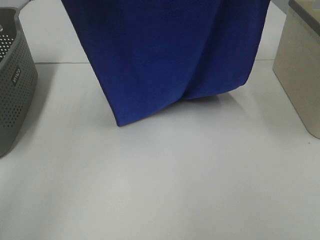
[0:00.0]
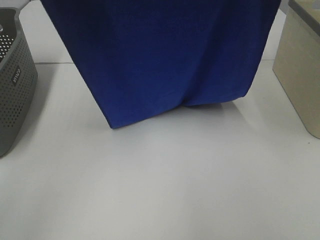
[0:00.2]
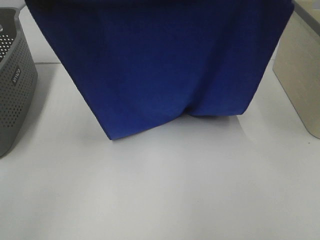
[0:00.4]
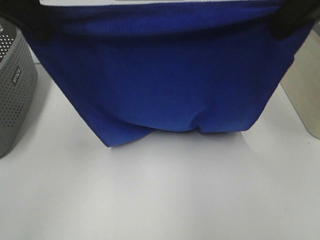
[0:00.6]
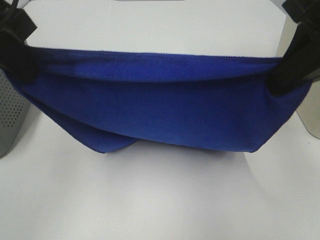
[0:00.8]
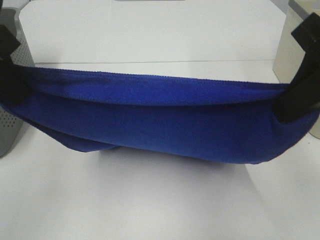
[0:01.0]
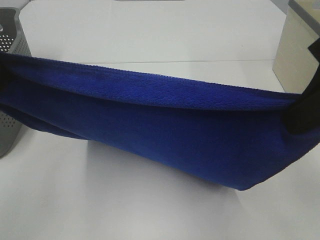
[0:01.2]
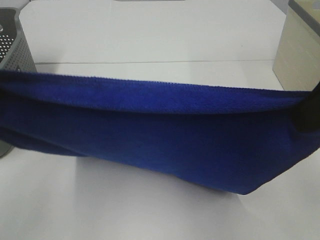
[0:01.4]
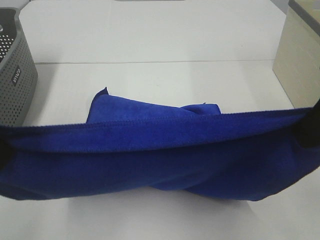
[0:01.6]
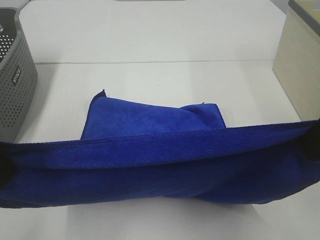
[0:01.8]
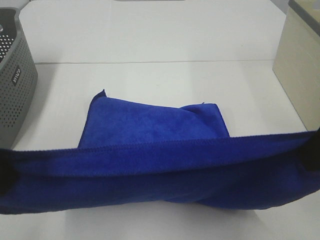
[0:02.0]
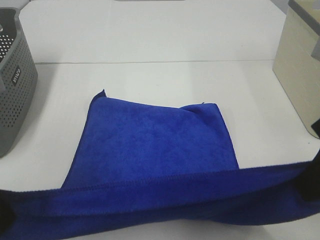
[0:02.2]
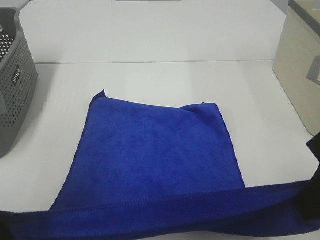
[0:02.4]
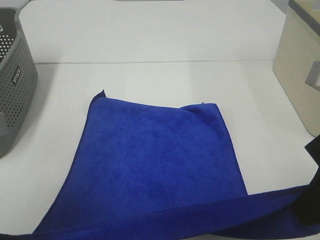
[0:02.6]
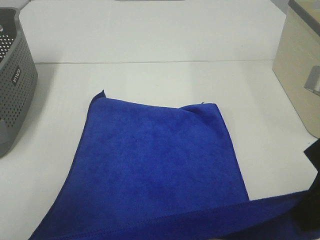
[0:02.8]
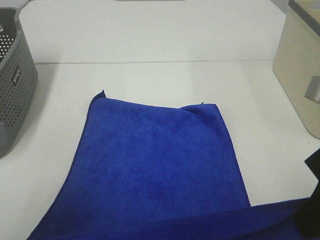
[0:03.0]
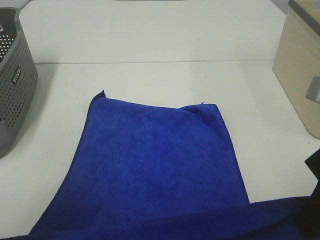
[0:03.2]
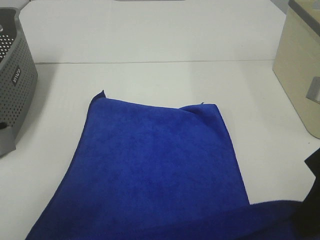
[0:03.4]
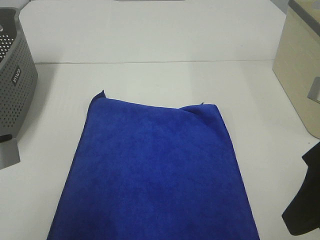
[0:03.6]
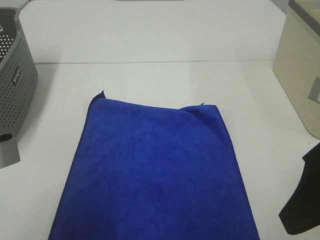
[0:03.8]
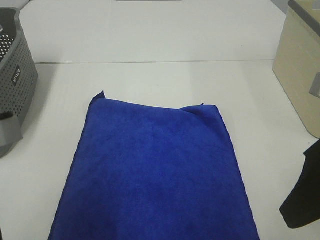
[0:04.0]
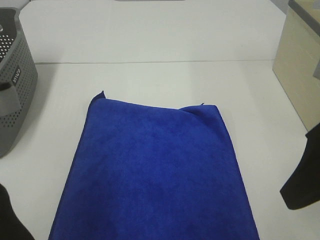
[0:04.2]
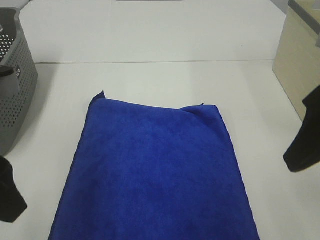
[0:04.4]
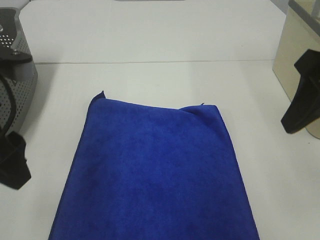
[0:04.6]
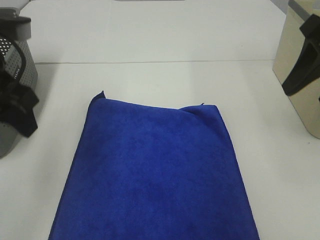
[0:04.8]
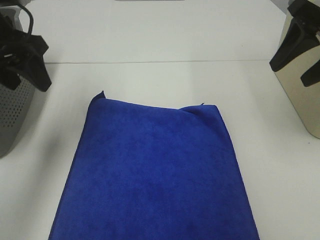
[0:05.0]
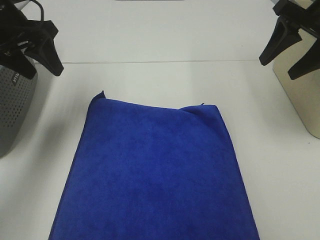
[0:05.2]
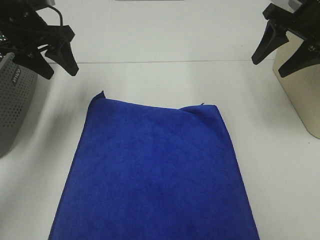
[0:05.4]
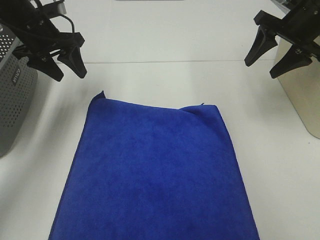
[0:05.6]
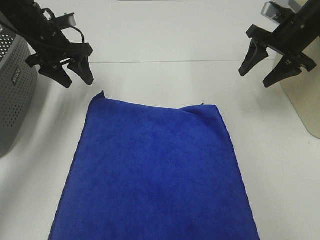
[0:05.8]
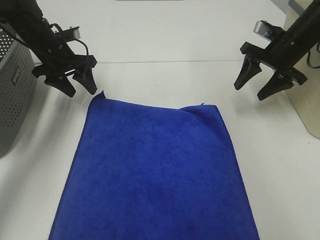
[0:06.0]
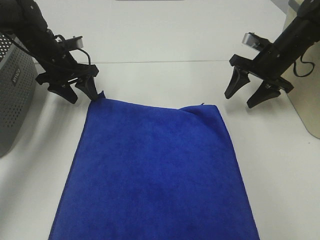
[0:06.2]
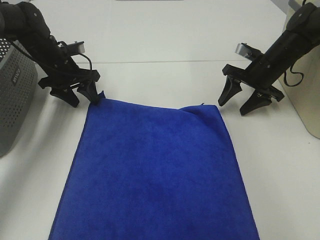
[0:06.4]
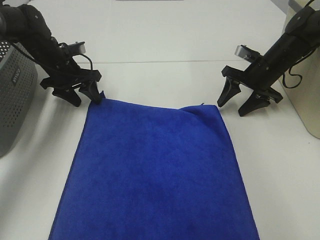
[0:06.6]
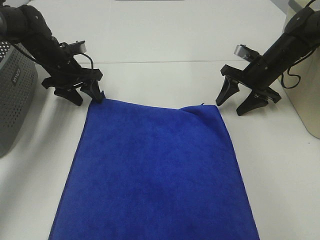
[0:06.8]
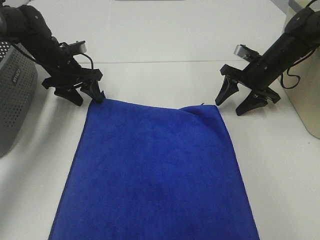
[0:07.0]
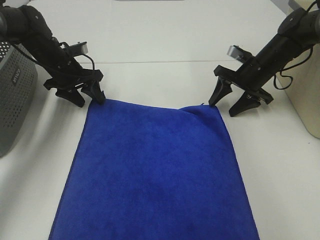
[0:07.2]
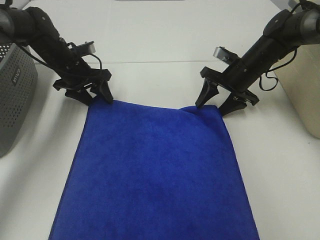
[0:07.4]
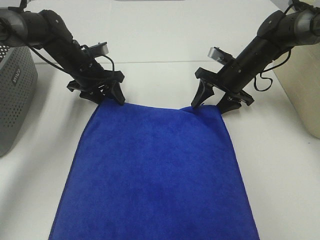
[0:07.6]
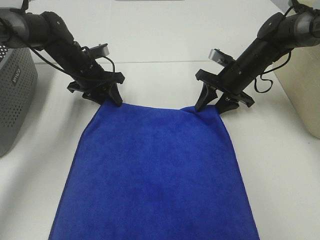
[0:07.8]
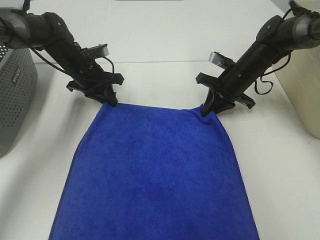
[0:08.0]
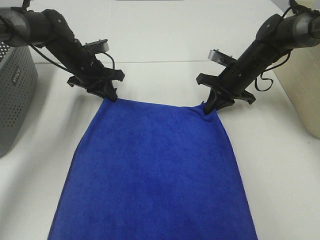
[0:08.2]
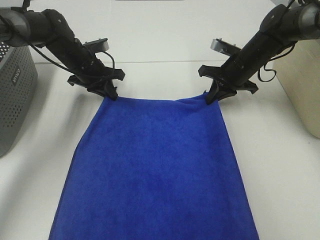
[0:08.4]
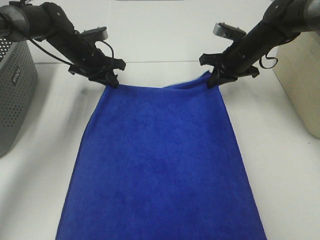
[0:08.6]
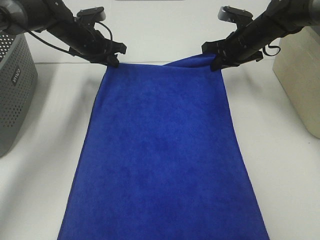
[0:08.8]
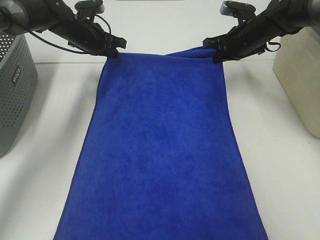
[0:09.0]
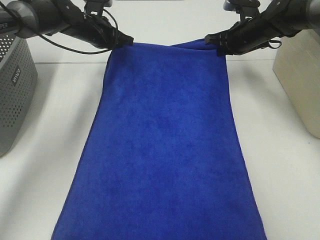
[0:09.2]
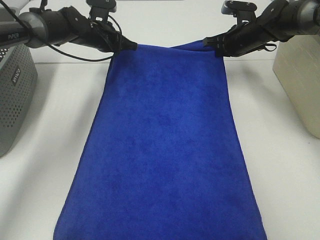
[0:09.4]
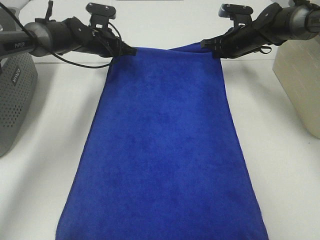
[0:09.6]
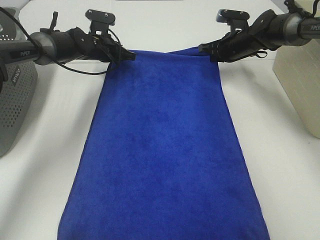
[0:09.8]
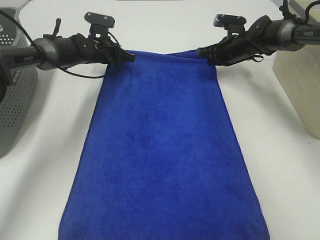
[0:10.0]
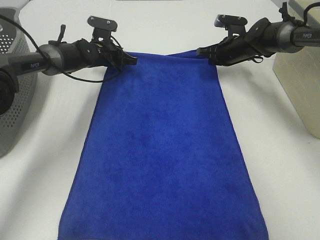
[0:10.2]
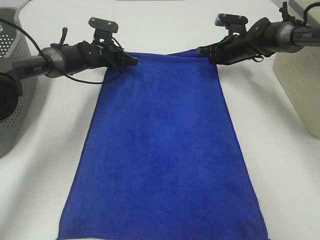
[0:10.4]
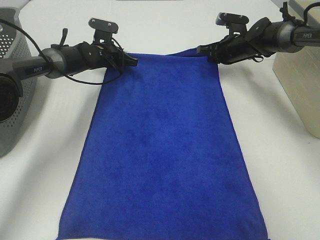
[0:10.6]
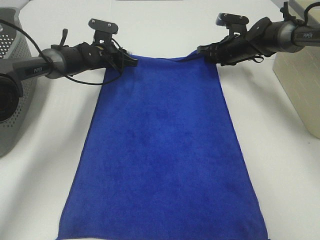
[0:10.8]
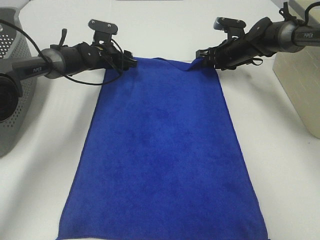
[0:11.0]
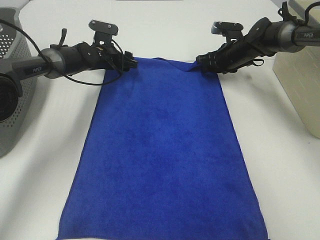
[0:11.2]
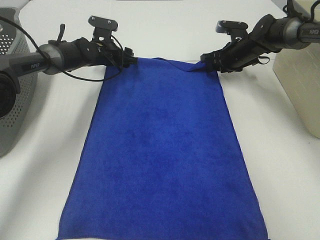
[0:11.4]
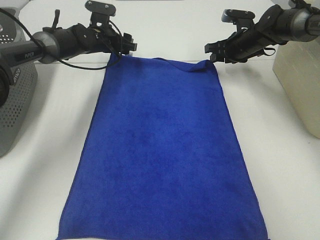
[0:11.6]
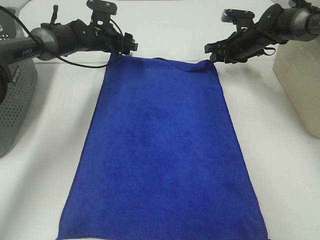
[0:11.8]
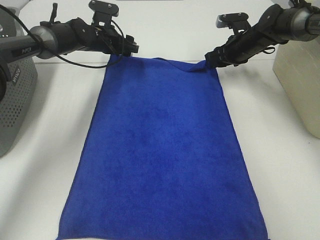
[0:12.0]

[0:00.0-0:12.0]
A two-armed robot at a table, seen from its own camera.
Task of the whole recording: Remove the towel and place it.
Step, 0:00.0 to 0:04.8: Left hand:adjust the blue towel.
Step, 0:00.0 to 0:04.8: Right hand:adjust the blue towel.
0:00.0 to 0:01.6: The right gripper travels downward and backward by approximately 20 cm. The left gripper moves backward and downward, approximately 20 cm.
0:01.6 to 0:03.0: Both grippers travel together downward, some 5 cm.
0:03.0 to 0:04.4: The right gripper changes place by roughly 5 cm, and opens up. The left gripper opens up.
0:04.4 to 0:06.0: The left gripper heads forward, covering about 35 cm, while the right gripper travels forward and downward by about 30 cm.
0:06.0 to 0:07.6: The left gripper goes some 5 cm to the right. The right gripper heads to the left and downward, covering approximately 10 cm.
0:07.6 to 0:09.0: The left gripper moves forward and upward, some 10 cm, and closes its fingers, while the right gripper shifts about 5 cm upward, and closes up.
0:09.0 to 0:10.4: The left gripper moves downward, roughly 10 cm, while the right gripper is displaced downward and forward by roughly 10 cm.
0:10.4 to 0:12.0: The right gripper opens. Meanwhile the left gripper opens its fingers.

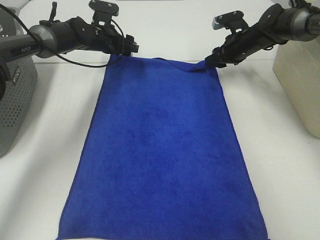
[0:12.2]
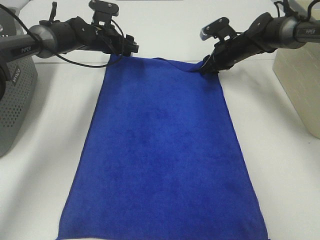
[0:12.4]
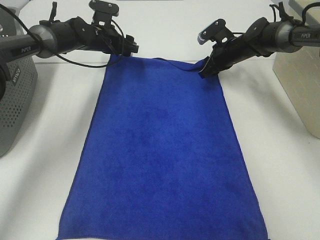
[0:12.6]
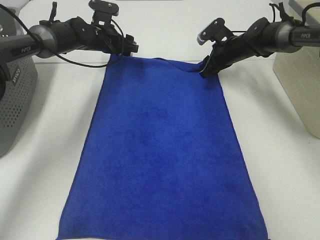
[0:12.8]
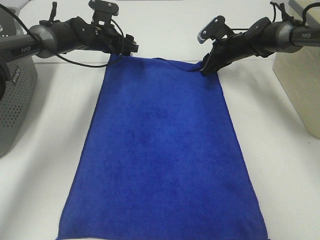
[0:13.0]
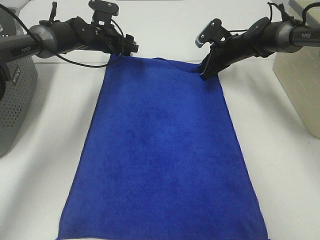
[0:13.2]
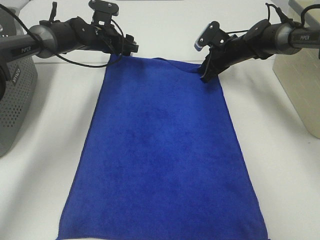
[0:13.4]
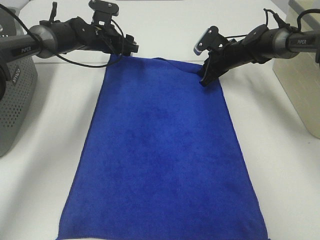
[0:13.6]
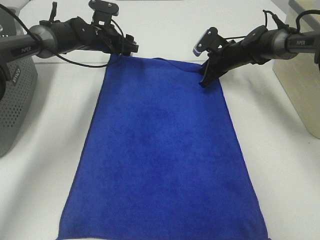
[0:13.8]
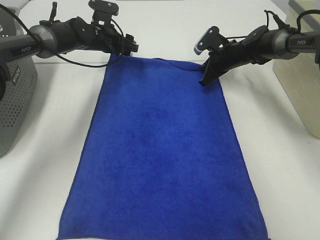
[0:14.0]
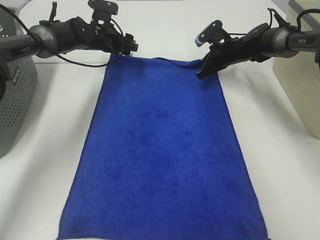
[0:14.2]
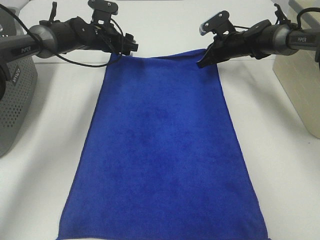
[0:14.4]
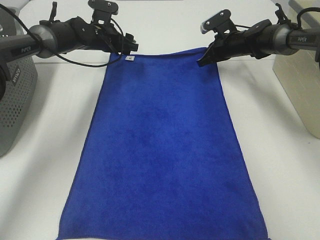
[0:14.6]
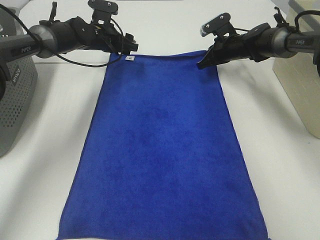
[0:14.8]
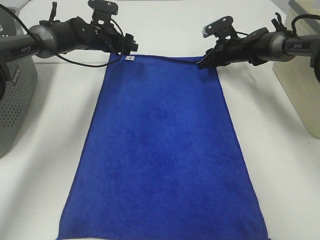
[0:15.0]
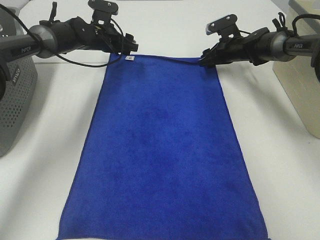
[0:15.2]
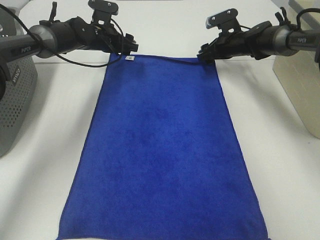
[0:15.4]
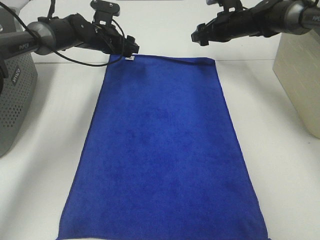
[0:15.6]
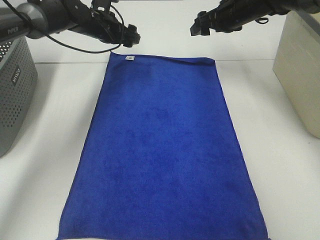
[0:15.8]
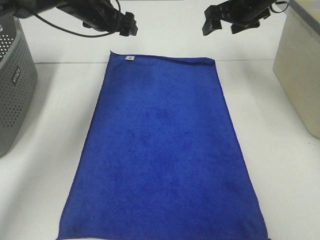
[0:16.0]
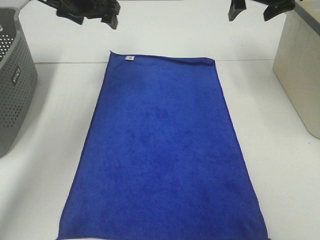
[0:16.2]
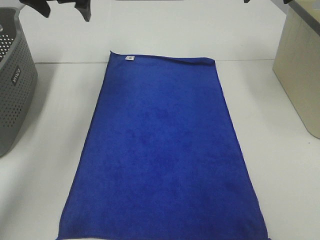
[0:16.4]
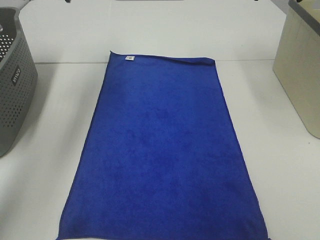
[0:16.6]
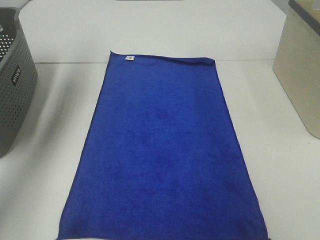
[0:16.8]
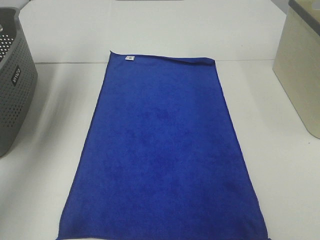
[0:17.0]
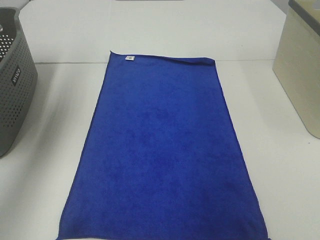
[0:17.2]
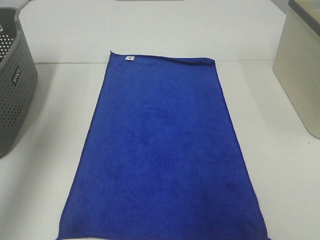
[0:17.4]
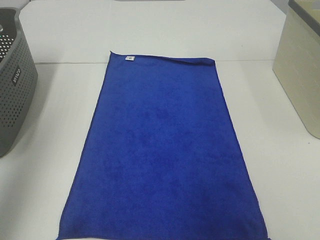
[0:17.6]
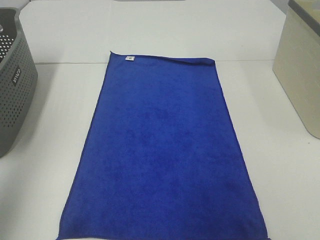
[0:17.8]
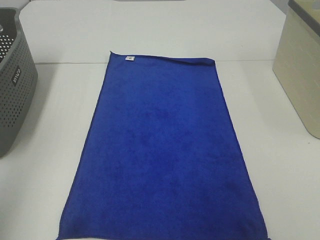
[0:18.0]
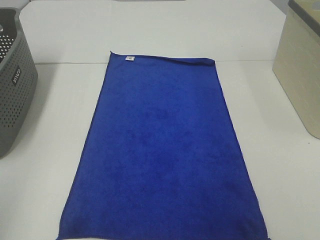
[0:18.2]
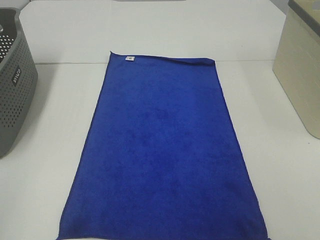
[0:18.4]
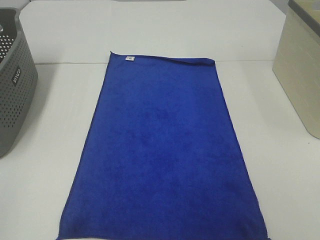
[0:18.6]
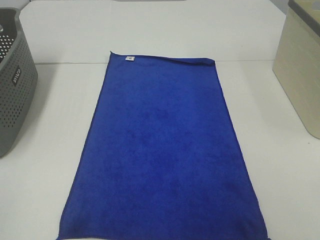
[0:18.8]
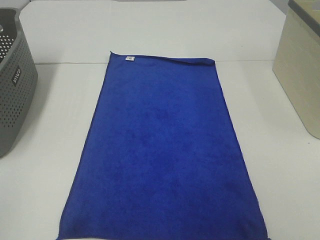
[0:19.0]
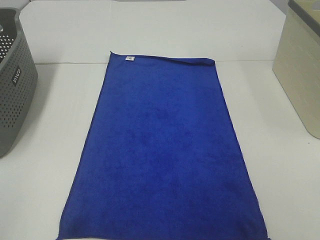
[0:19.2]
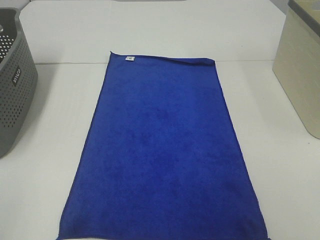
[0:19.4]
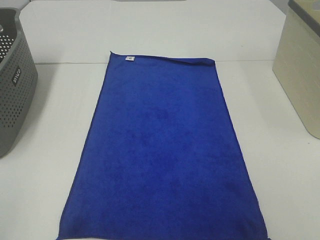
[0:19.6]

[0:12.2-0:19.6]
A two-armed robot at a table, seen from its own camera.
Task of the whole recording: Remove the towel and place it.
0:13.6 to 0:15.2: The right gripper opens up.
0:15.2 to 0:16.6: The two grippers go about 30 cm upward and backward.
0:16.6 to 0:18.2: The left gripper shifts about 40 cm backward.

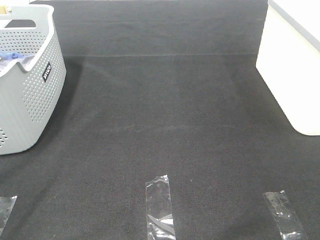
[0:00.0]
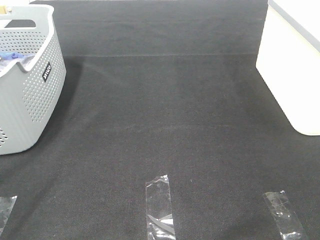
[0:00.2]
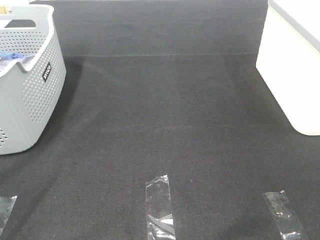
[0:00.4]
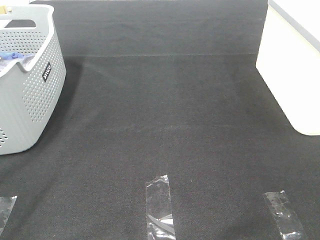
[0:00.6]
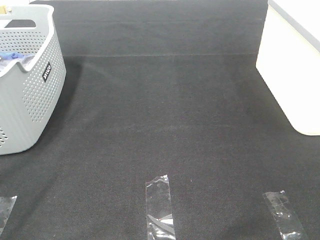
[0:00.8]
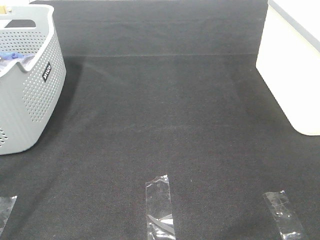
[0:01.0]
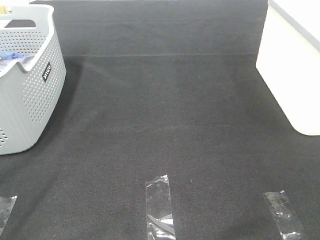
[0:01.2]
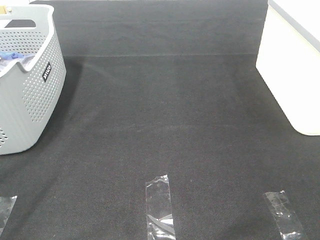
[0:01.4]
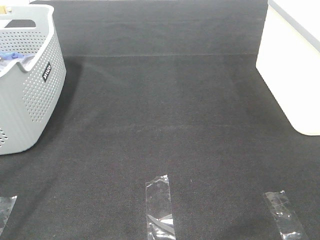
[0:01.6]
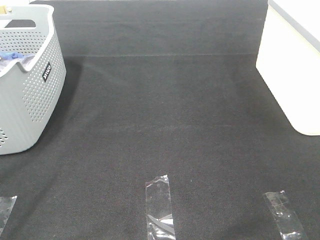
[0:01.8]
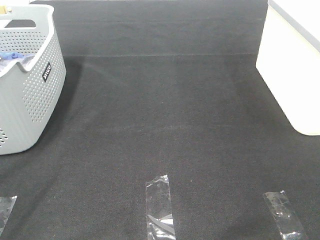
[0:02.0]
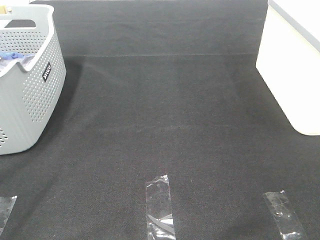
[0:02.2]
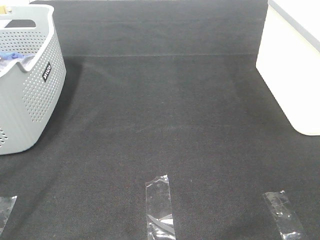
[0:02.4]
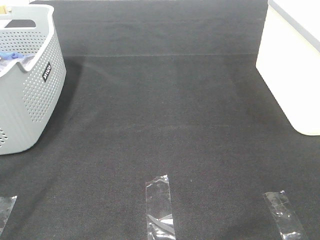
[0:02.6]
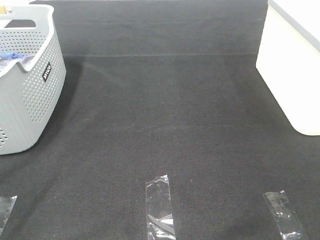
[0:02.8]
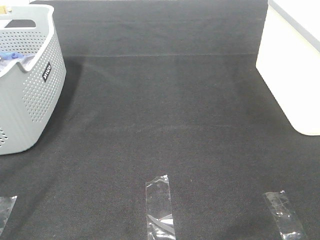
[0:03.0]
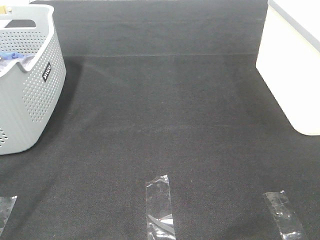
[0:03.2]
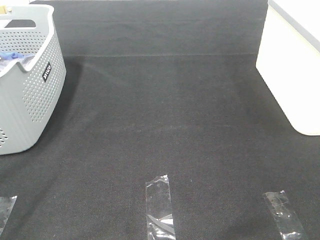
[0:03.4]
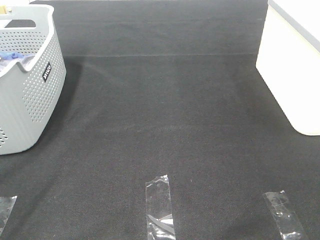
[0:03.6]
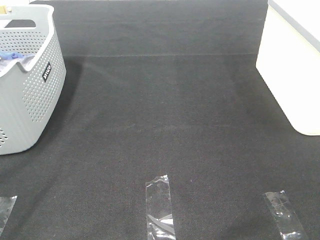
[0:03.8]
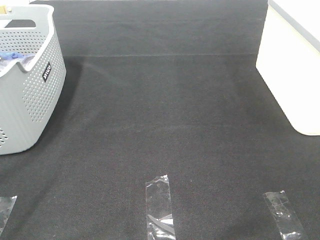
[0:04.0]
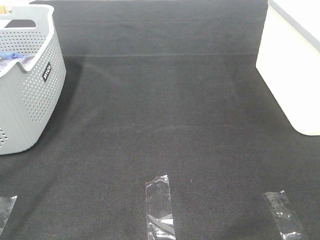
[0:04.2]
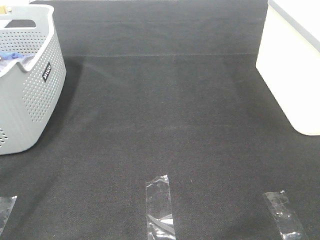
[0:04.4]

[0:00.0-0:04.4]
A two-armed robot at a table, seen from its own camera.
Task of the whole recording: Remove the towel and place it.
0:00.0 to 0:03.0: The two grippers keep their place.
